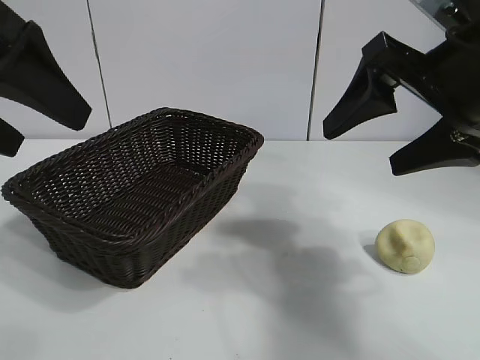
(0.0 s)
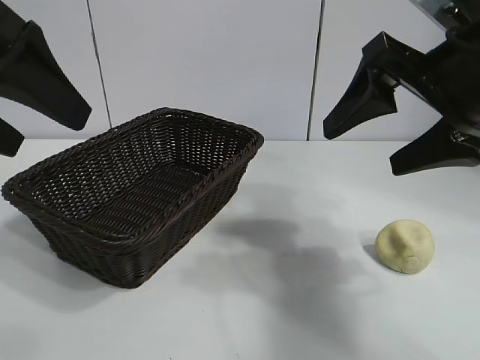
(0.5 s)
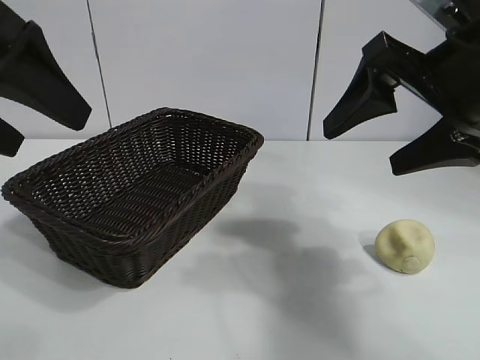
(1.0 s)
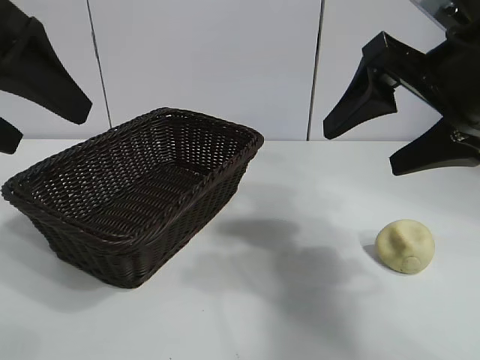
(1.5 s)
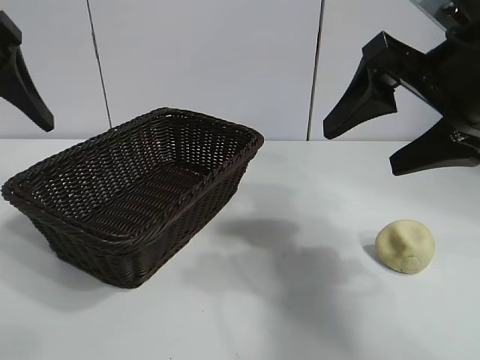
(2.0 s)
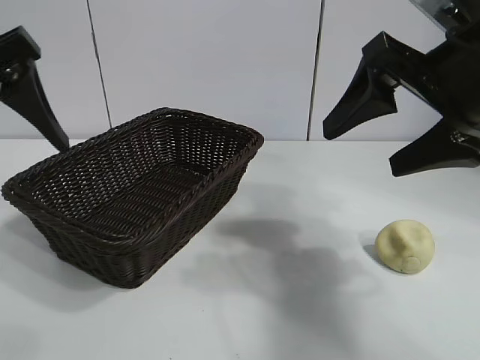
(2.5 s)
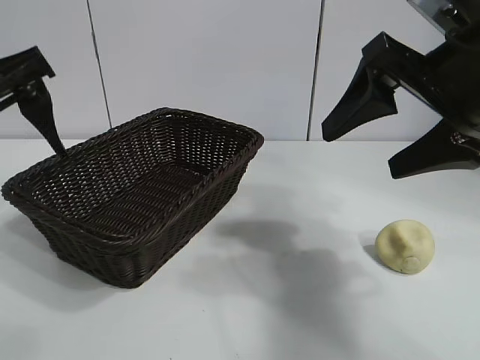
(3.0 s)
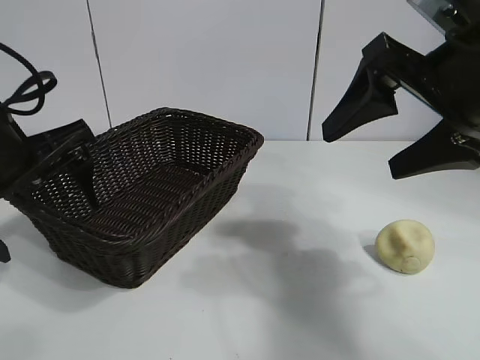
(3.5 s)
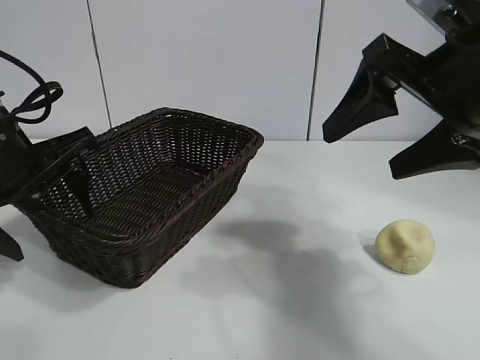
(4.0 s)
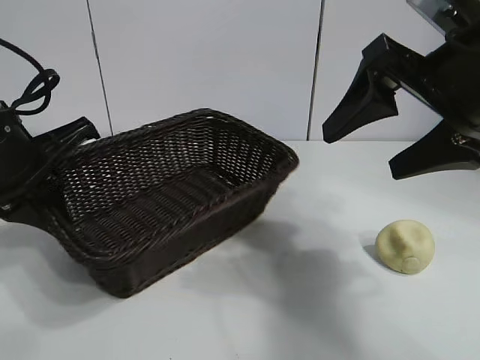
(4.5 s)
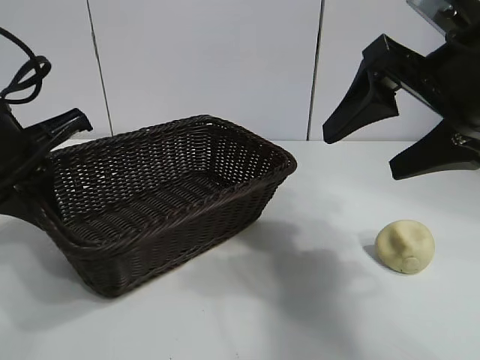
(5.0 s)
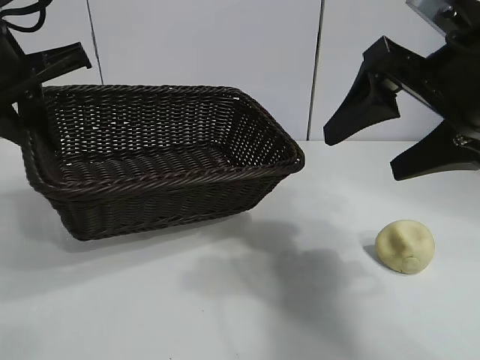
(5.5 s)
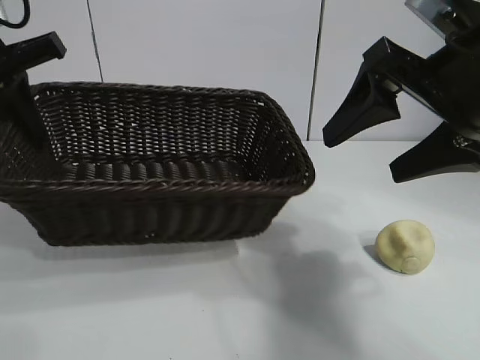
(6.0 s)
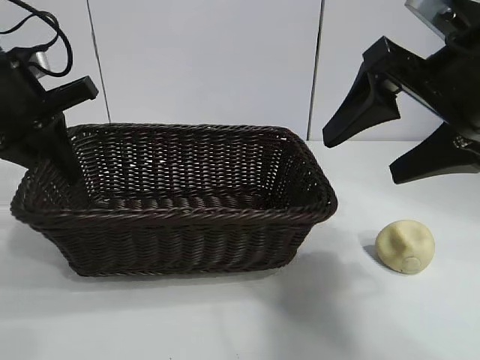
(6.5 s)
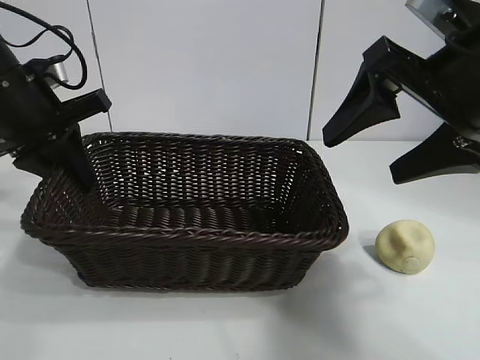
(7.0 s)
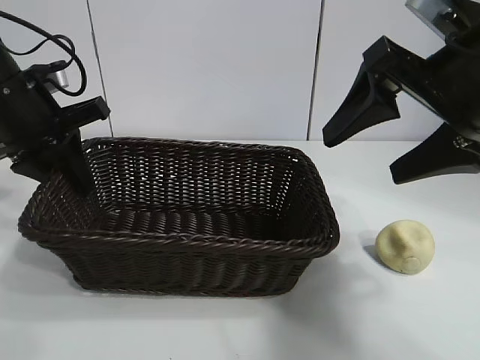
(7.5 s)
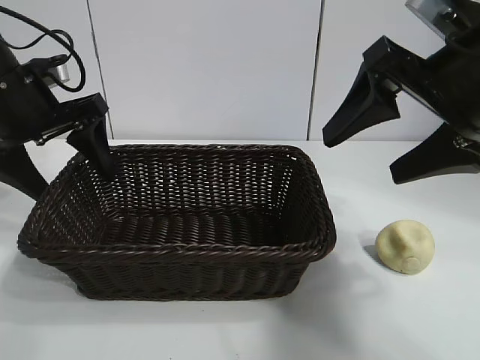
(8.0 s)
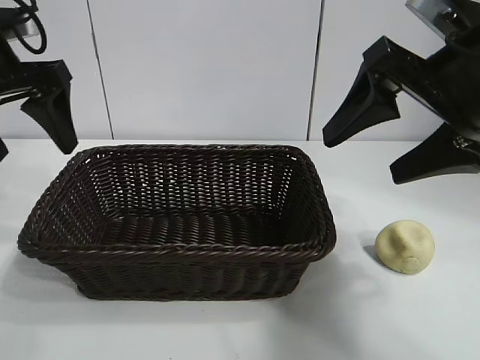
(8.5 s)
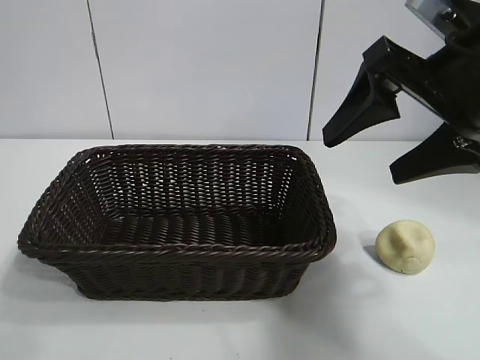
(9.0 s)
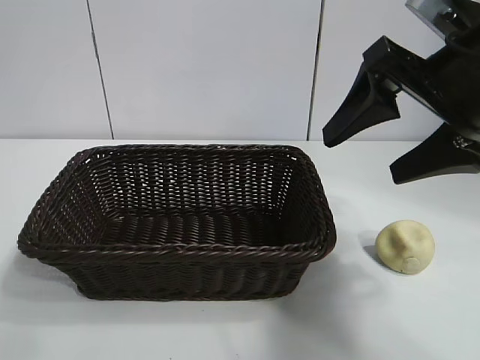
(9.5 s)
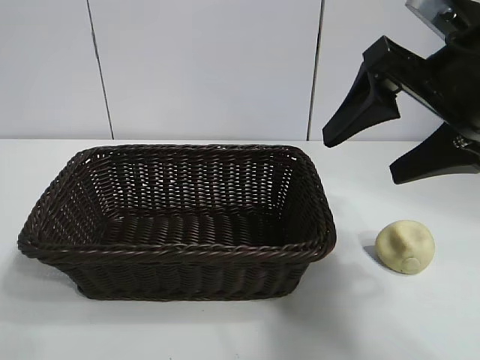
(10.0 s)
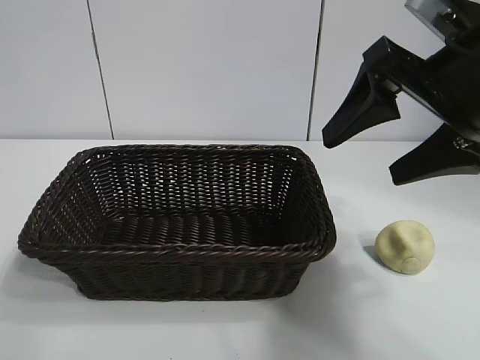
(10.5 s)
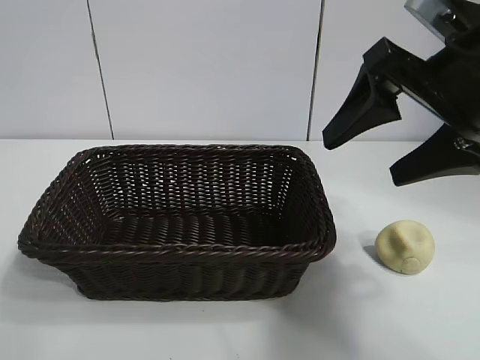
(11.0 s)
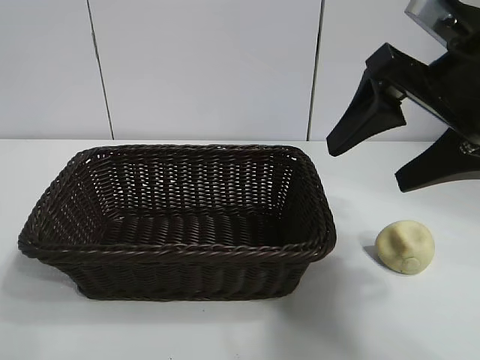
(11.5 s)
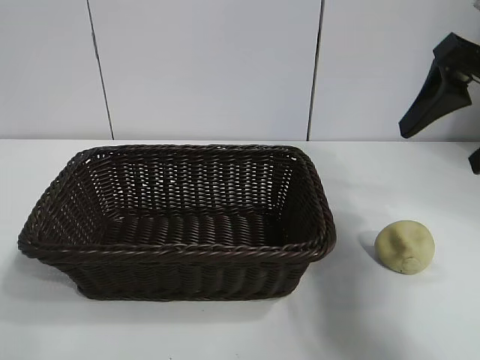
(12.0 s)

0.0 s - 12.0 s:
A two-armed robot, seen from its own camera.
Task of the whole recording: pick up the egg yolk pastry and put it into the basket.
Step, 1.5 s - 4.5 s: Grasp the basket with left gripper.
Step, 5.0 s - 7.5 s: Place the basket in the center of view with left gripper.

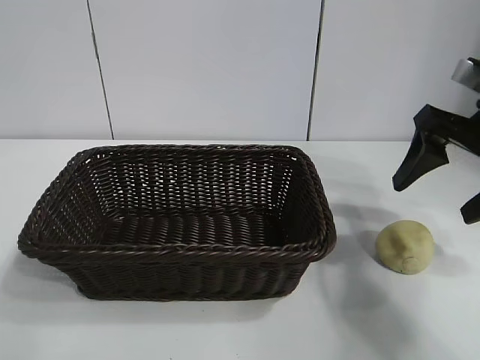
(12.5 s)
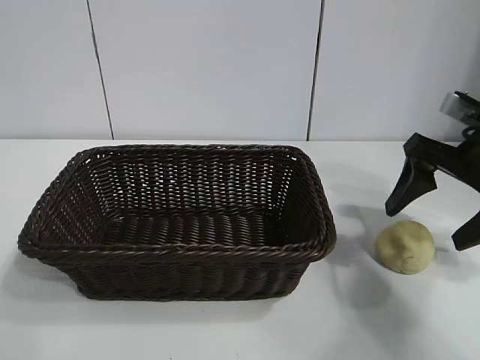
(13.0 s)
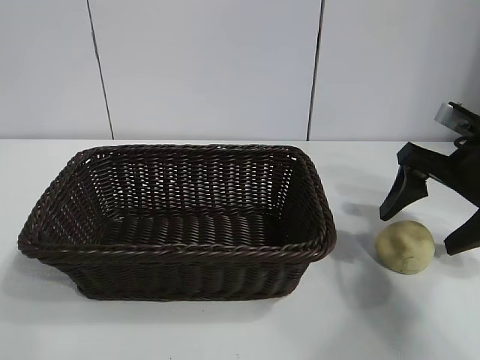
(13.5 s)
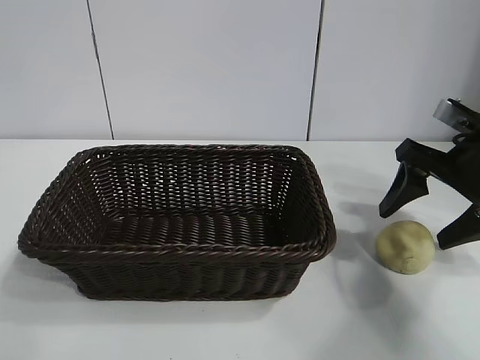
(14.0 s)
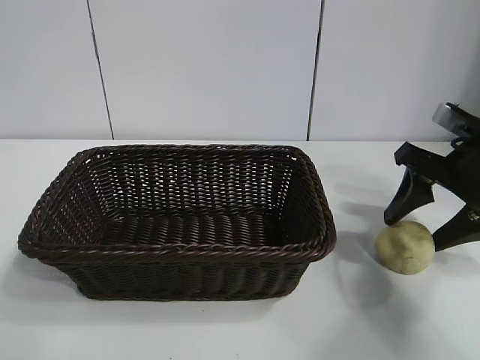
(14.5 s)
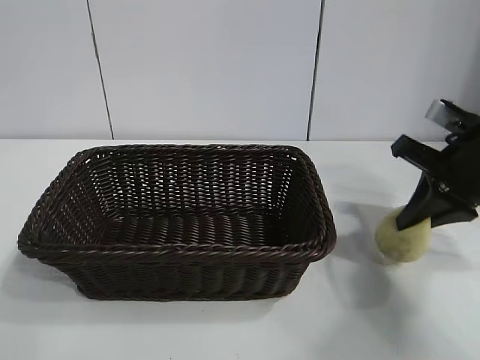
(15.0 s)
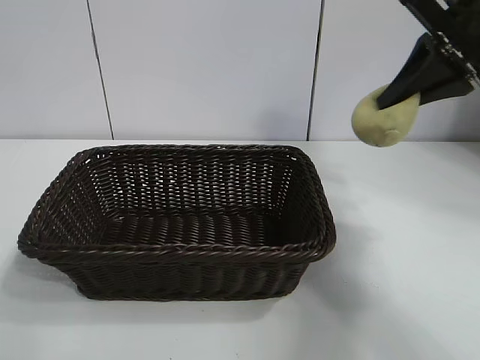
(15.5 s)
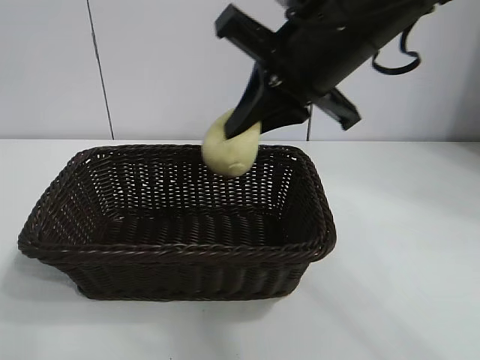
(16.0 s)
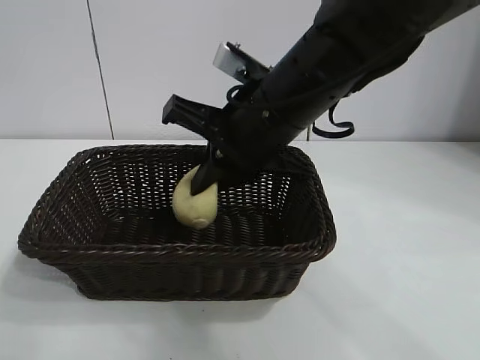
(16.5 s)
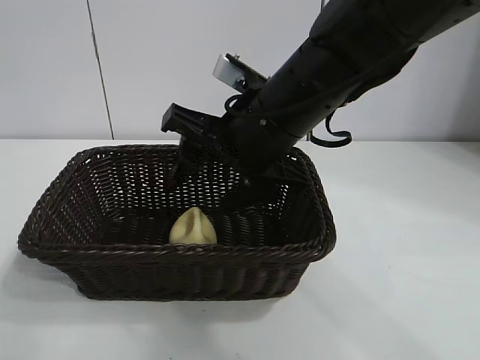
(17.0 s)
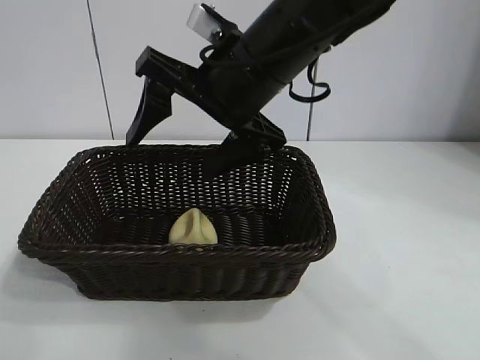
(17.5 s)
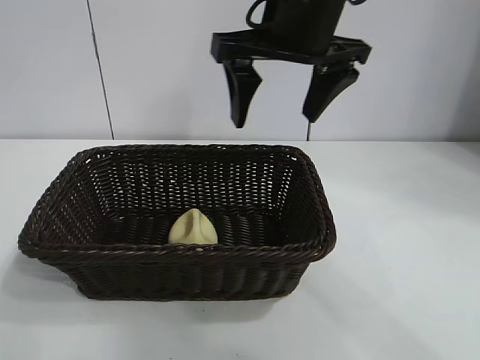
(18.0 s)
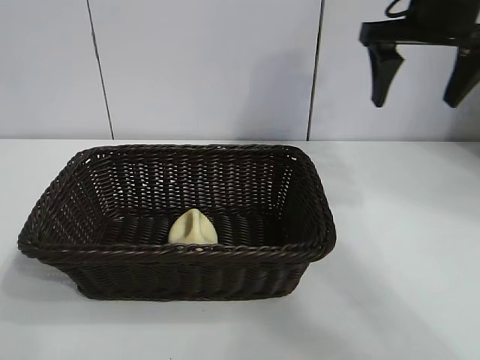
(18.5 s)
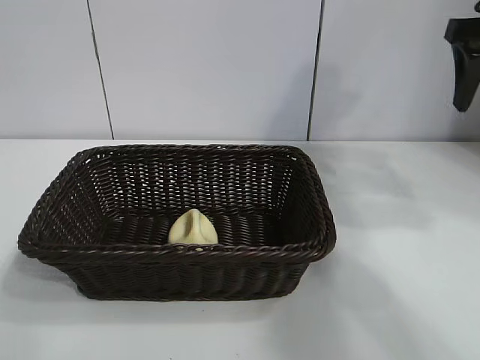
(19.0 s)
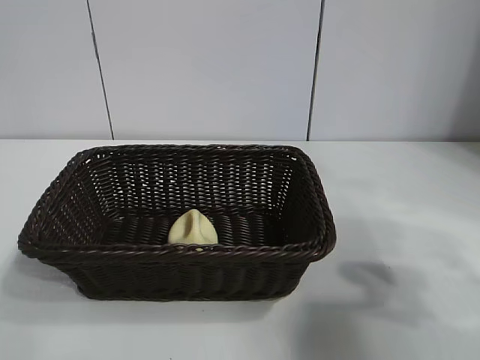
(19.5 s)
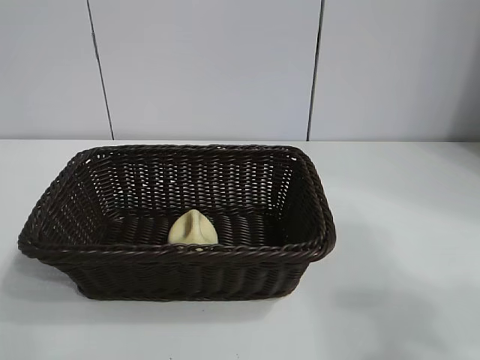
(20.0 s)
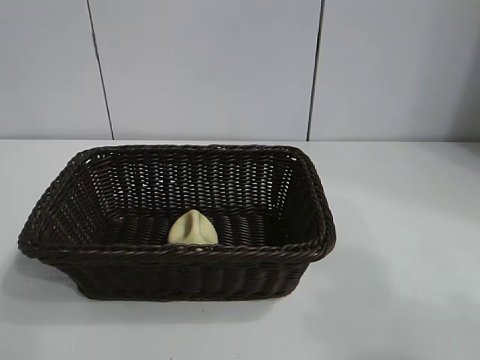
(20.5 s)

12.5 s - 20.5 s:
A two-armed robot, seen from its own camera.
Task of the whole recording: pick up the egg yolk pastry and put it into the basket.
Step, 12.5 s - 14.5 s: Grasp egg yolk pastry with right gripper.
Step, 15.0 s - 17.0 s: Place the egg yolk pastry in the basket with right gripper.

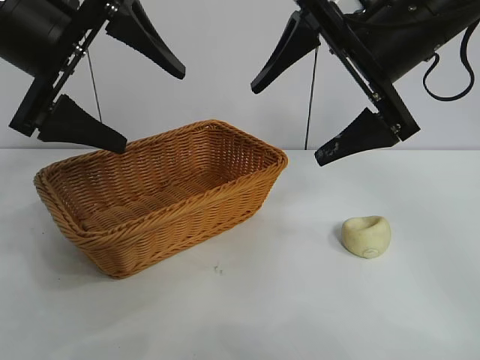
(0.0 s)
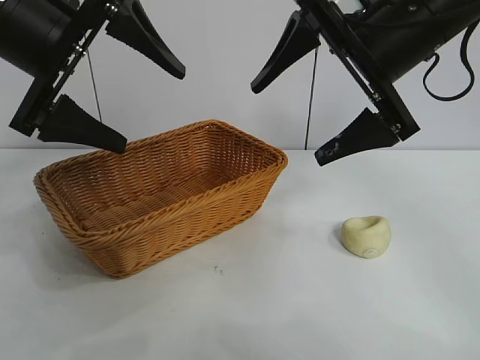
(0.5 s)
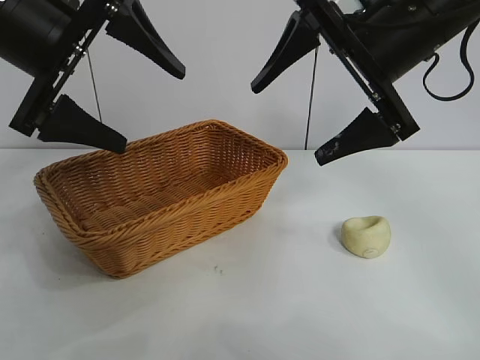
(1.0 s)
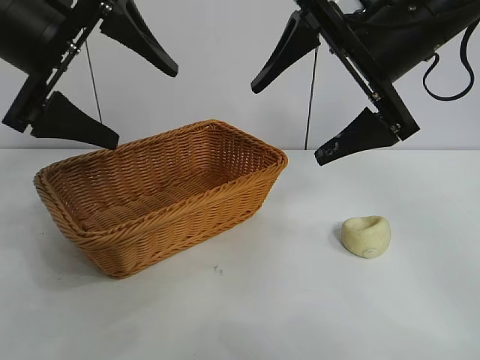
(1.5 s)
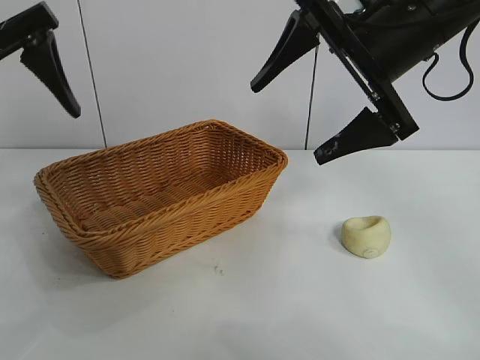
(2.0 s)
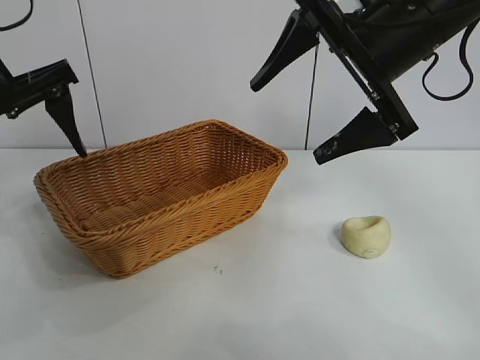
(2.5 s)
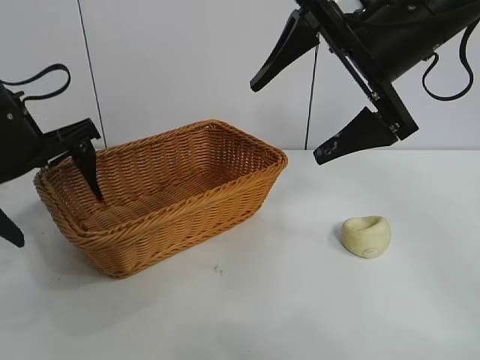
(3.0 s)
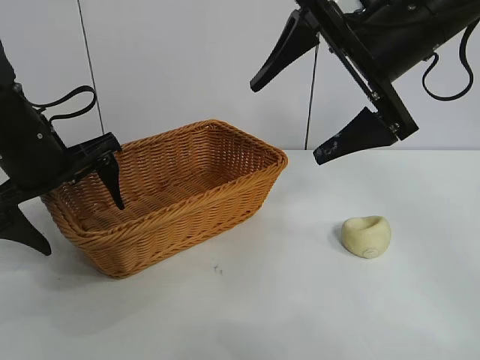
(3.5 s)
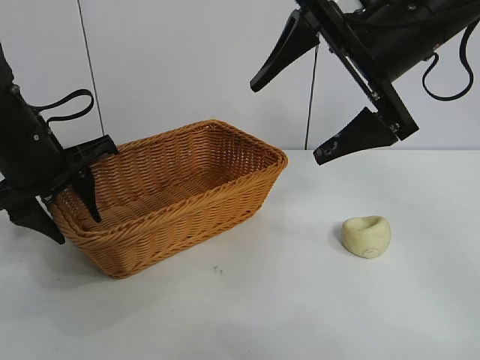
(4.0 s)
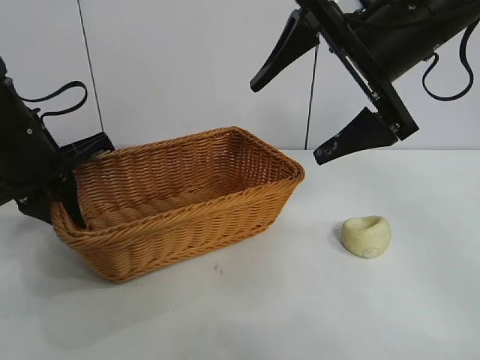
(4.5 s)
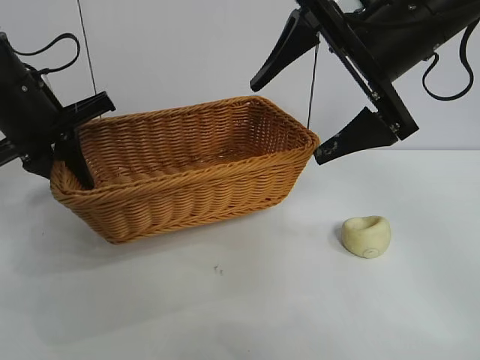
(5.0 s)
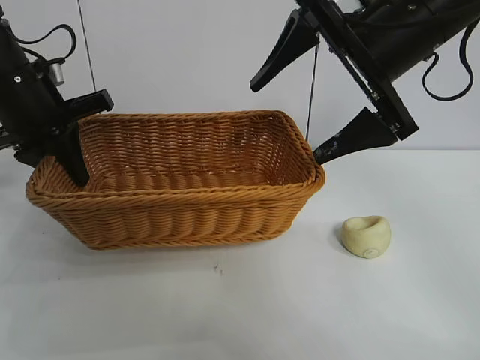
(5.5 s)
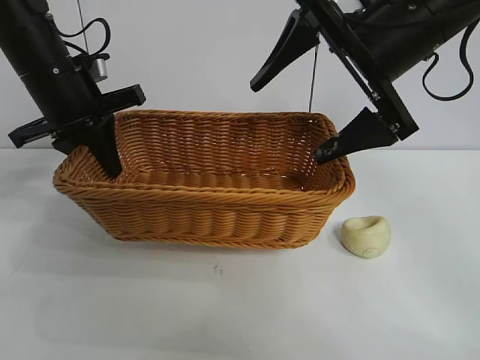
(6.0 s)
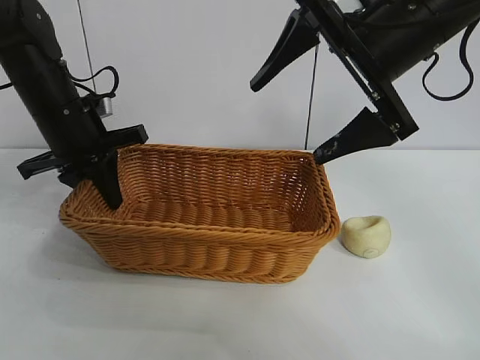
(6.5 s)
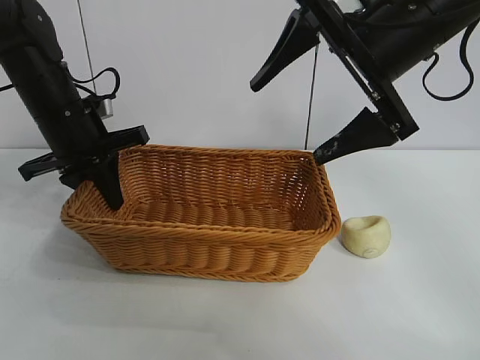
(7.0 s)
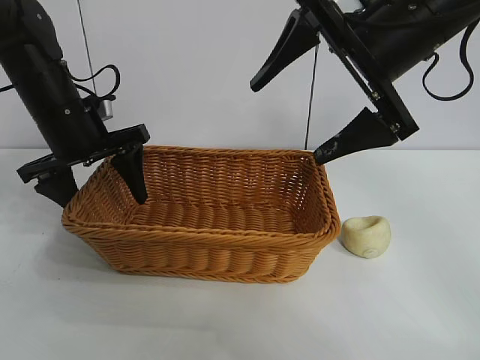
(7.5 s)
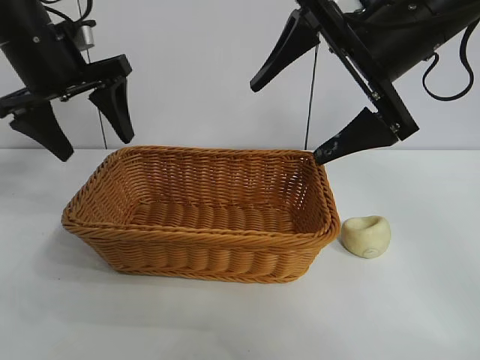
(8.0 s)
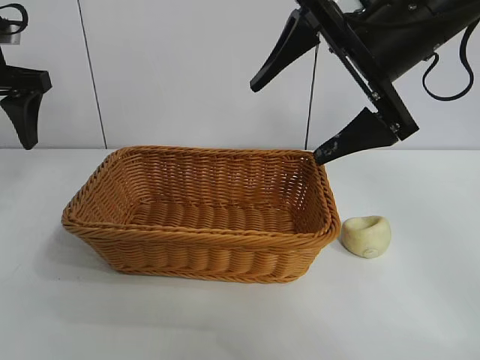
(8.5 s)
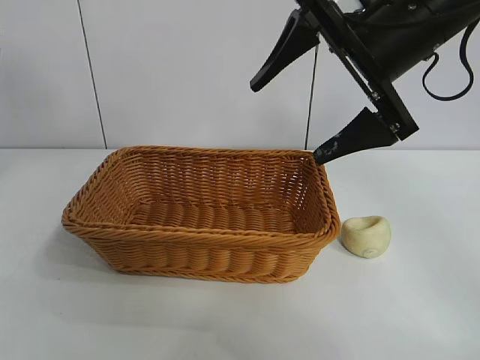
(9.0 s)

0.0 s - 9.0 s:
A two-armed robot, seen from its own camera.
Task of the whole recording: pick up the egg yolk pastry and put it into the basket.
Step, 1.5 s - 4.0 s: Grasp the basket with left gripper.
Step, 4.5 s - 7.5 s: Place the basket in the center of view with left gripper.
